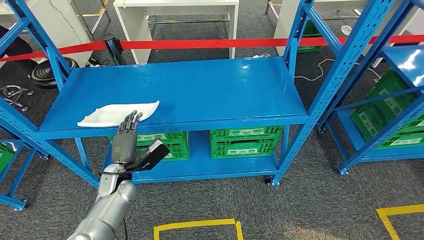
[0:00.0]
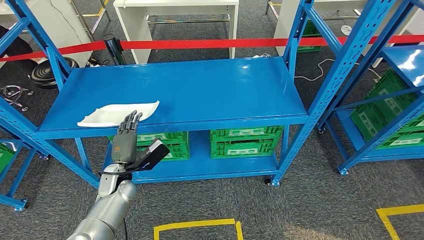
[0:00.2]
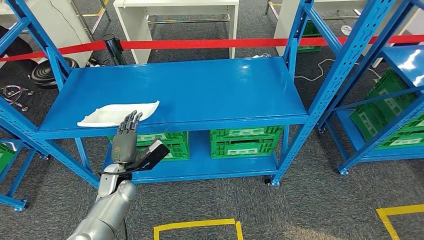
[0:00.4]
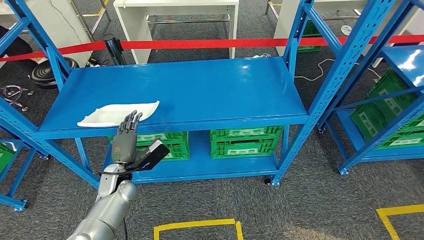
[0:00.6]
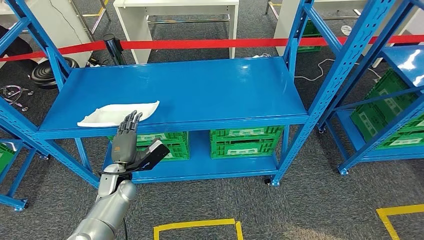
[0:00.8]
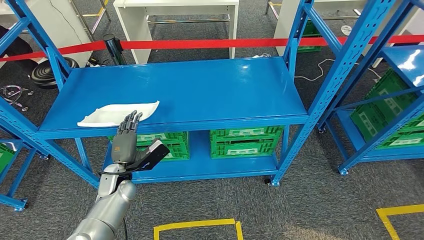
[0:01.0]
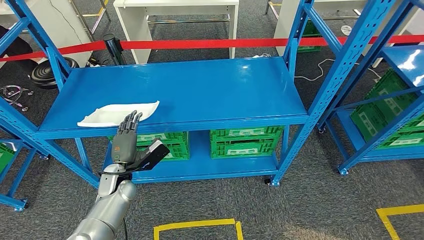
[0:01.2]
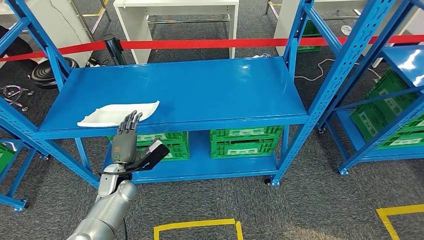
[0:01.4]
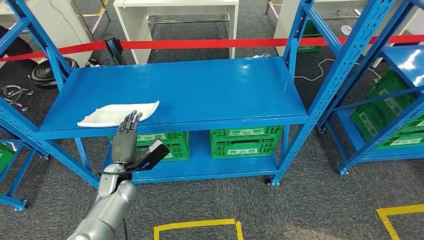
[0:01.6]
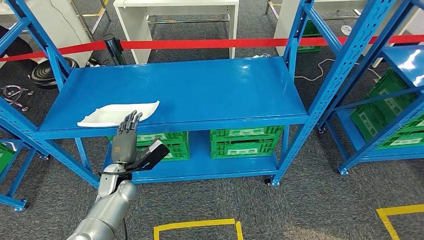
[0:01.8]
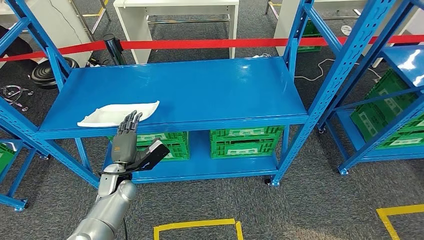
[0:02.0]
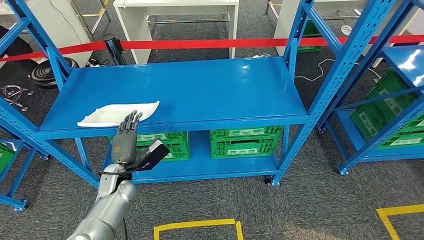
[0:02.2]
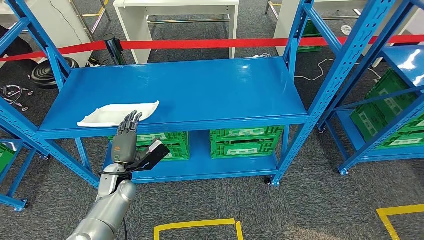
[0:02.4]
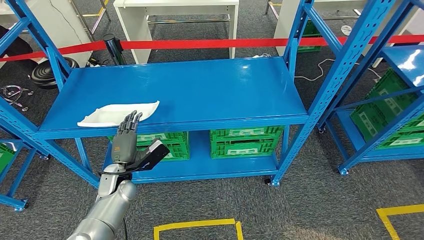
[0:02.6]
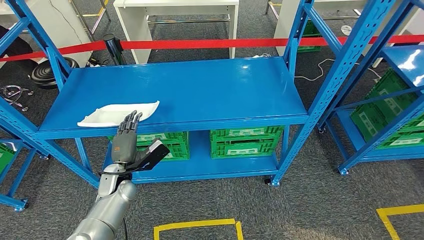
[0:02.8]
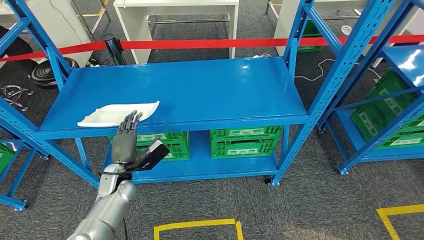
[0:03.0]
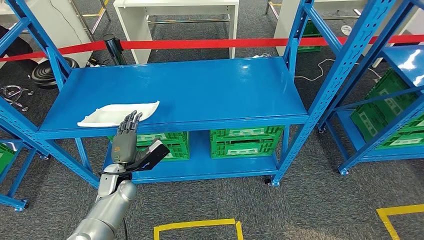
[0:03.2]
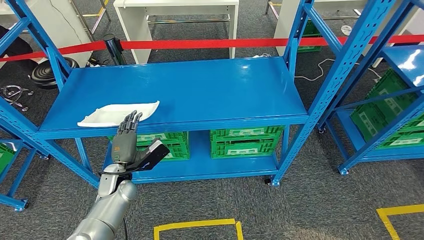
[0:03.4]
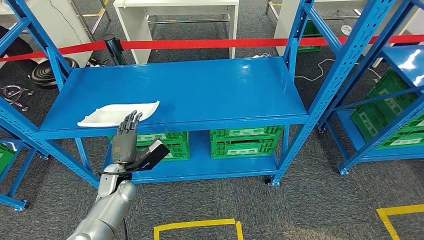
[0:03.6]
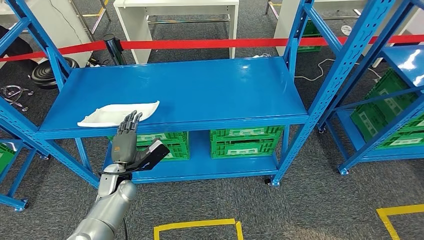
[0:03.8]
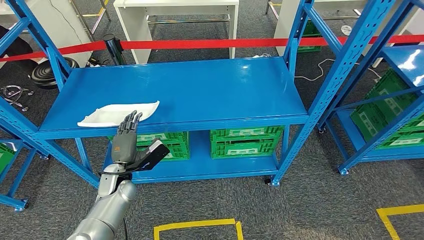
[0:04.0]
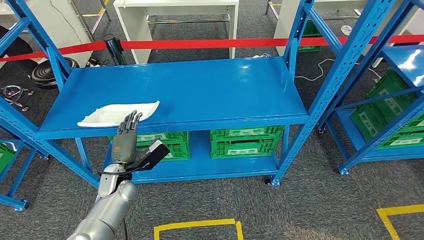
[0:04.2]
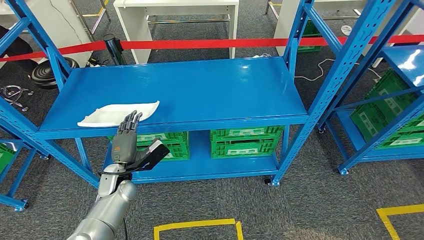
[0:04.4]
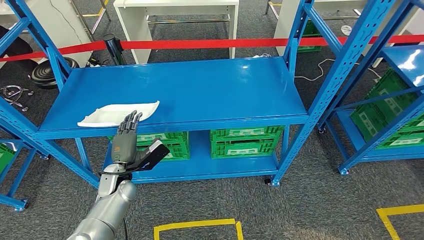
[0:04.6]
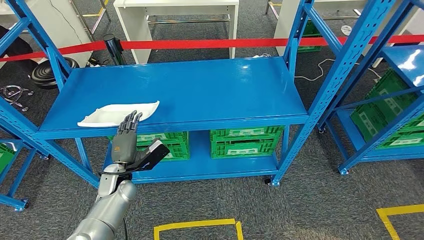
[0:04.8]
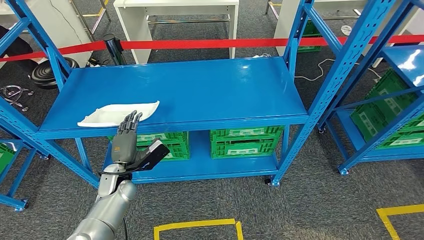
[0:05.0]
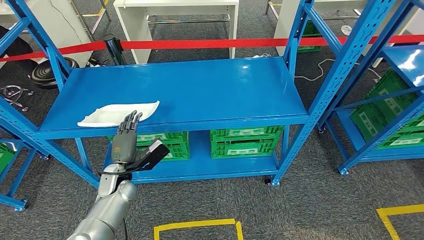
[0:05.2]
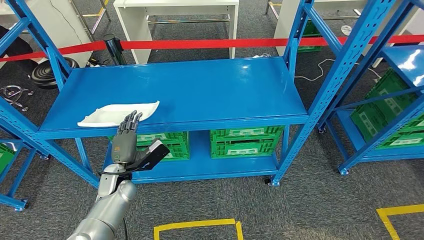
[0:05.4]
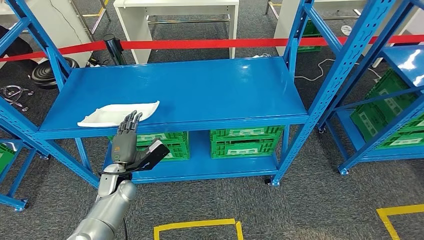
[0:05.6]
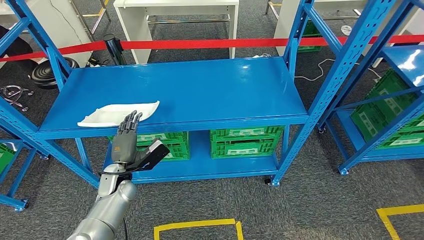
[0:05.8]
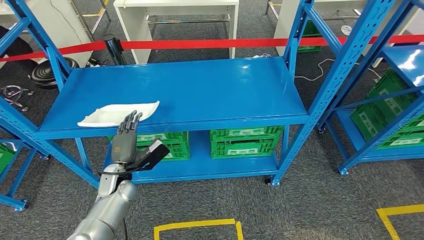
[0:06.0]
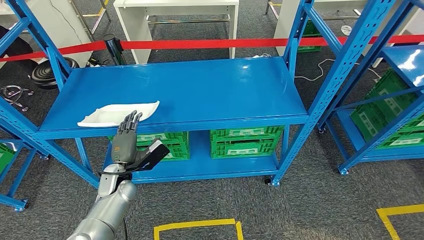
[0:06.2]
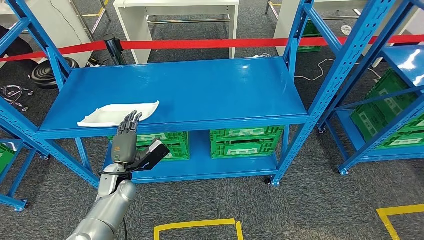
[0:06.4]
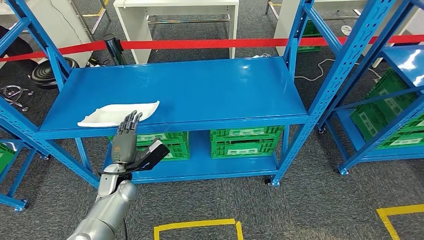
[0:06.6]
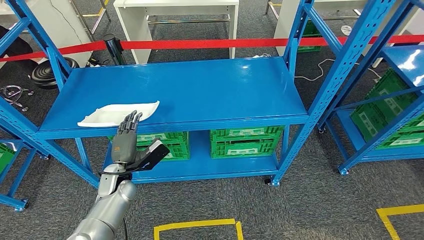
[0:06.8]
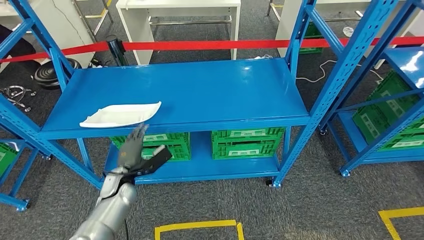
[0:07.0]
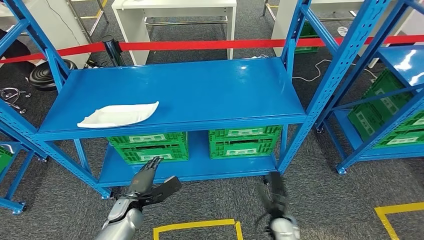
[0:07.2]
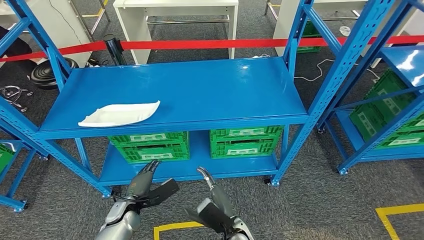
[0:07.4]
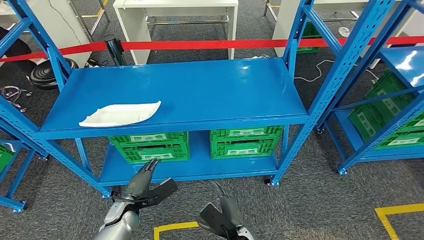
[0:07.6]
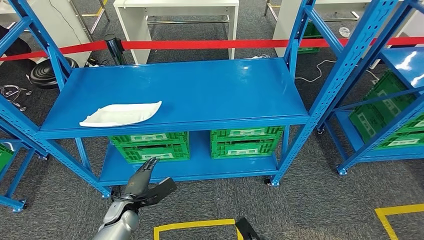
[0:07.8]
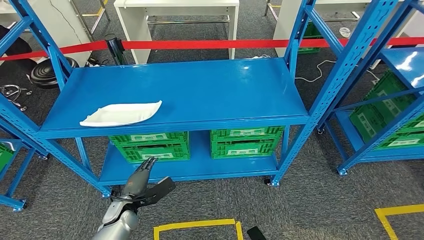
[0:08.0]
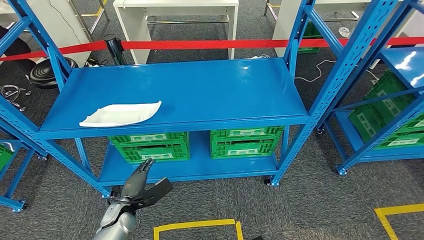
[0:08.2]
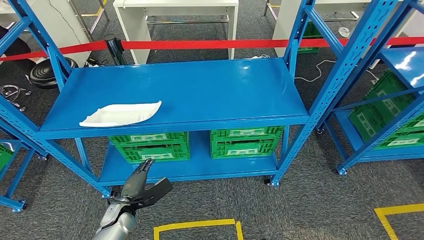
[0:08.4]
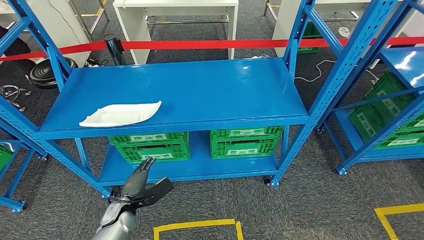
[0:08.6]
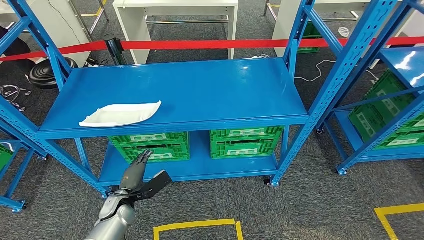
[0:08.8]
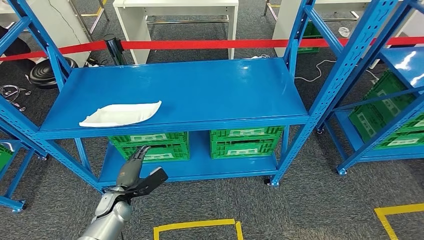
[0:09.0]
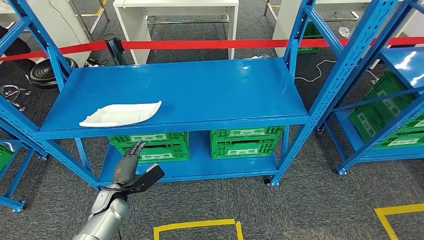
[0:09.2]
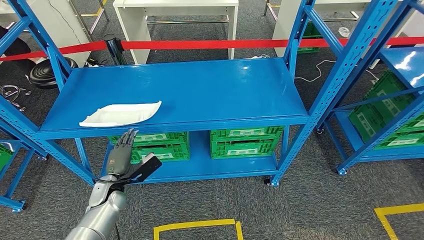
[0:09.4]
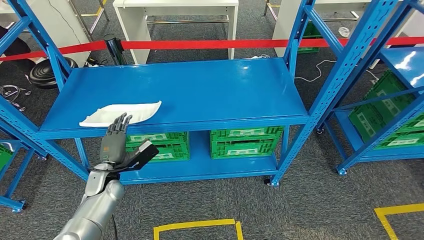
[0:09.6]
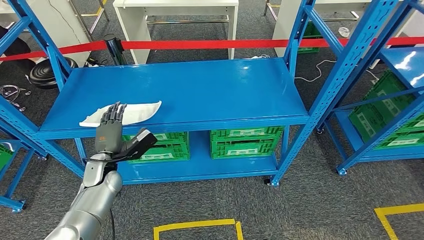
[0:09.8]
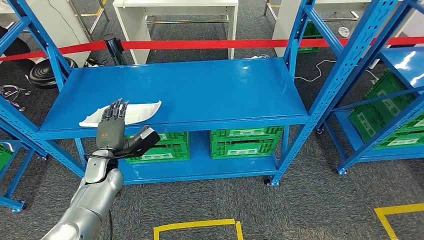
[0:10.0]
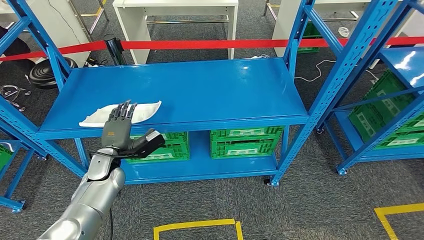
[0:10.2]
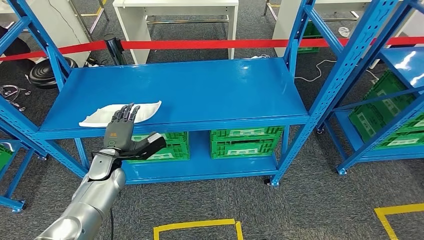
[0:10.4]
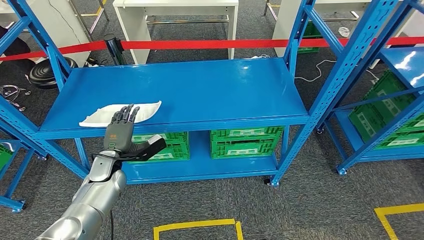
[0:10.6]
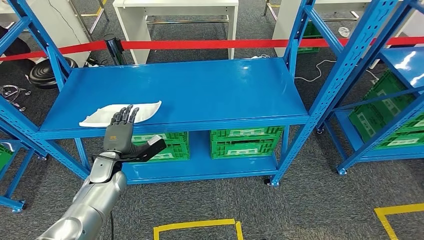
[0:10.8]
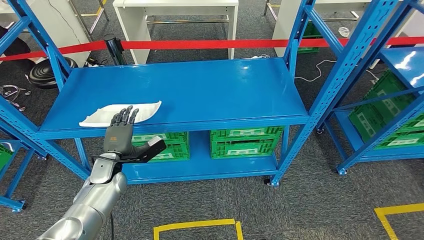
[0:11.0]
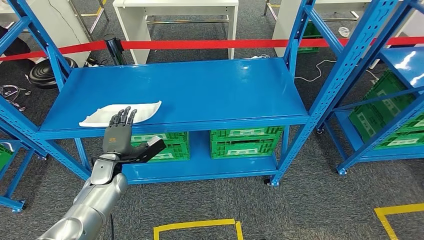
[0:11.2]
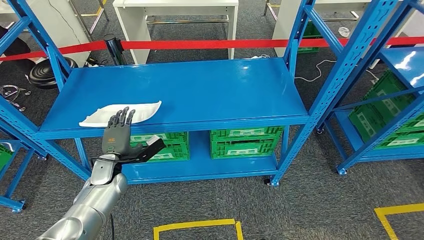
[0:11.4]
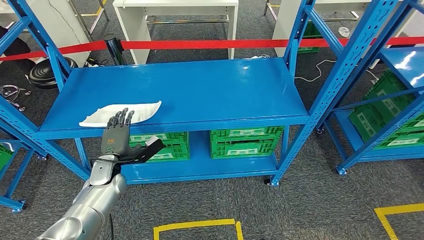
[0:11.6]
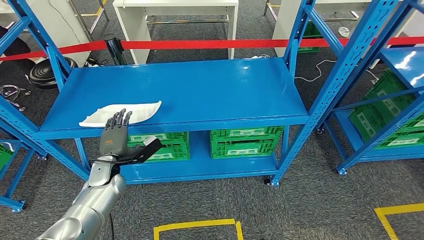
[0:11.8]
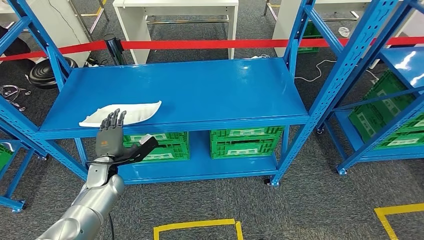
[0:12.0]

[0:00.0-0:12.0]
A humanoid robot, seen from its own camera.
0.0 to 6.0 s: Both hands stay put.
6.0 to 7.6 s: The left hand moves downward and backward, some 10 cm; the right hand heads forward, upward and to the left, covering about 15 cm.
7.6 to 9.0 s: The right hand shifts roughly 20 cm backward, to the right and downward.
9.0 to 10.4 s: The left hand is displaced upward and forward by roughly 10 cm.
10.4 to 12.0 s: The hands move only a little.

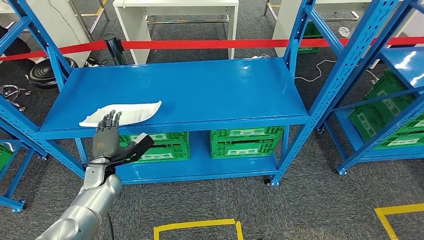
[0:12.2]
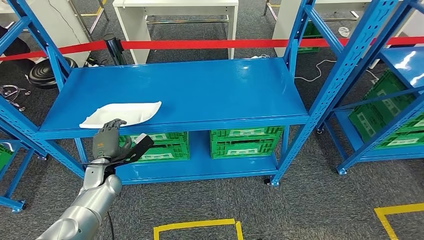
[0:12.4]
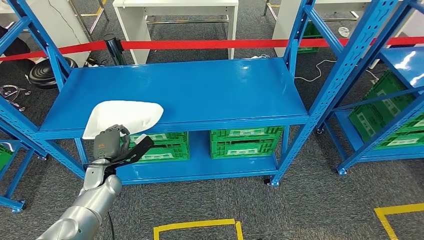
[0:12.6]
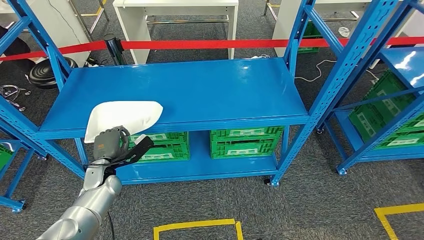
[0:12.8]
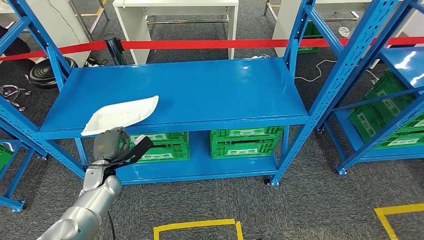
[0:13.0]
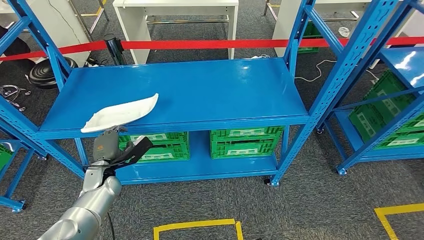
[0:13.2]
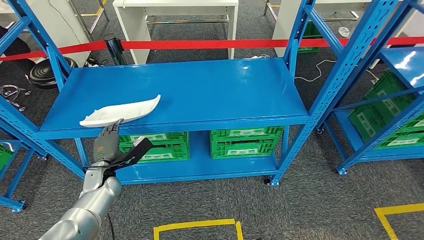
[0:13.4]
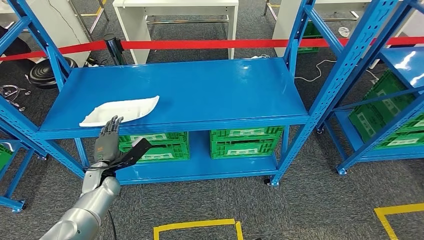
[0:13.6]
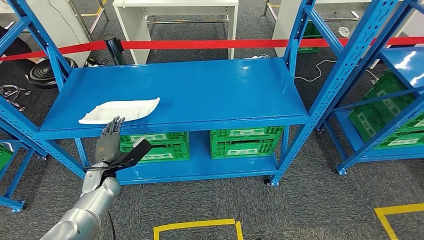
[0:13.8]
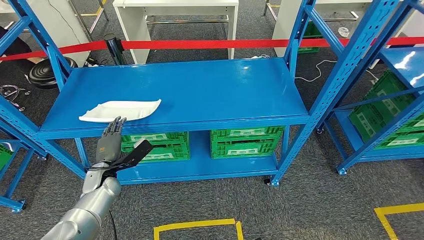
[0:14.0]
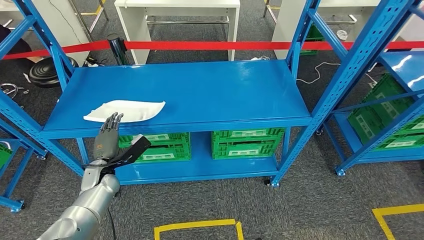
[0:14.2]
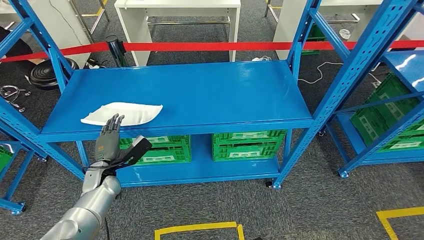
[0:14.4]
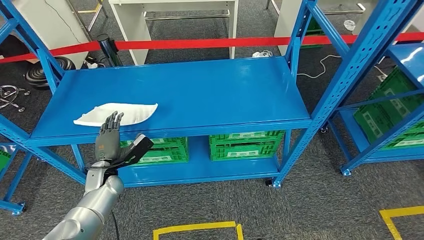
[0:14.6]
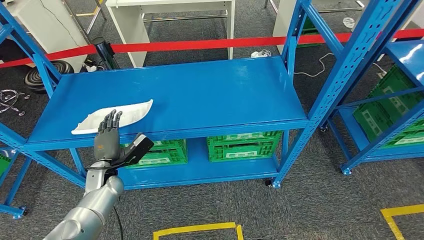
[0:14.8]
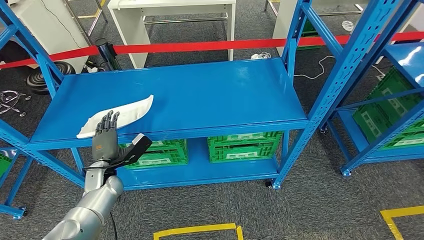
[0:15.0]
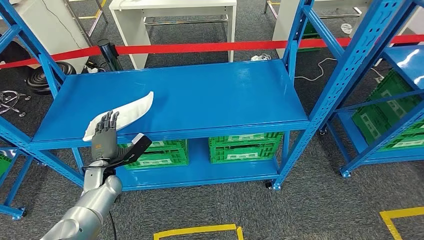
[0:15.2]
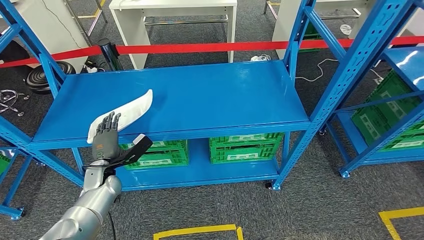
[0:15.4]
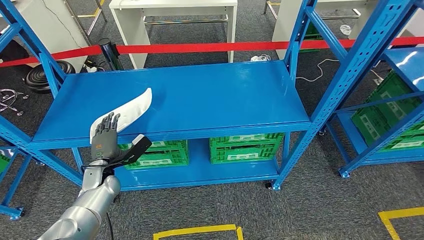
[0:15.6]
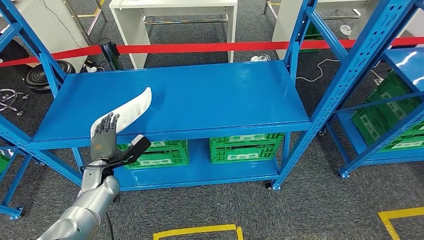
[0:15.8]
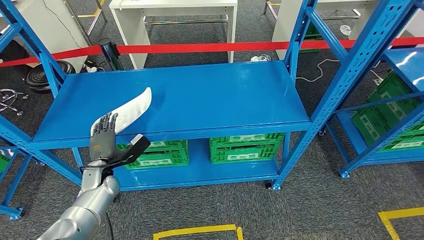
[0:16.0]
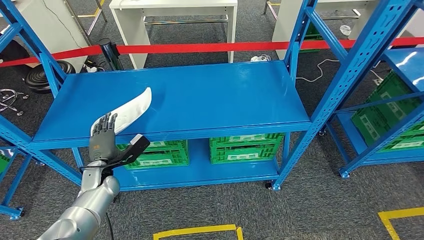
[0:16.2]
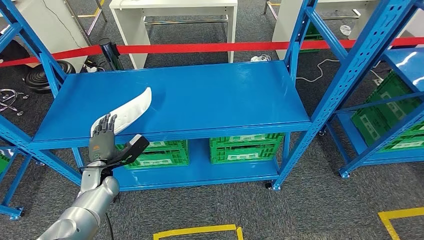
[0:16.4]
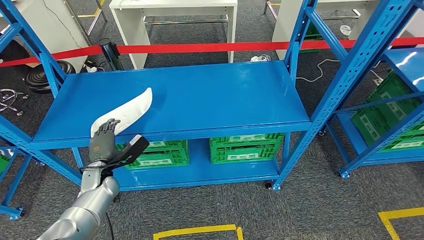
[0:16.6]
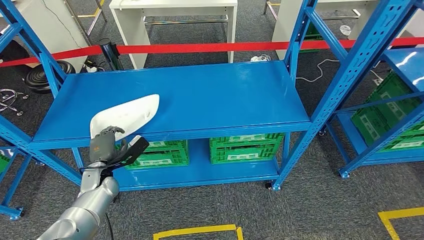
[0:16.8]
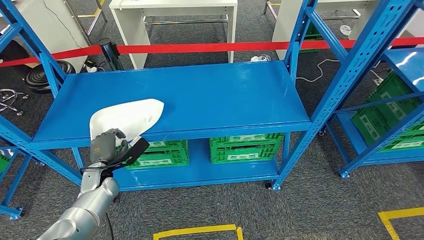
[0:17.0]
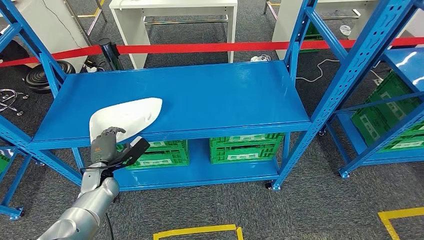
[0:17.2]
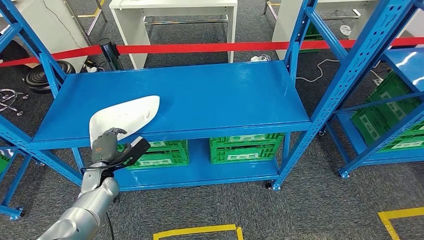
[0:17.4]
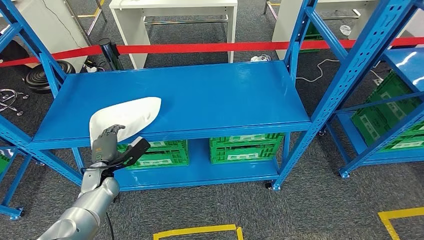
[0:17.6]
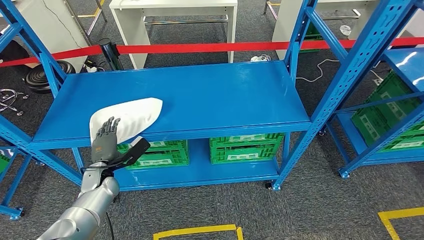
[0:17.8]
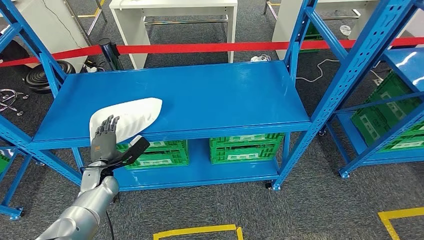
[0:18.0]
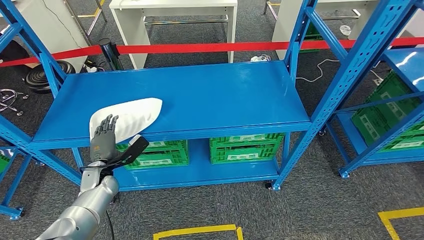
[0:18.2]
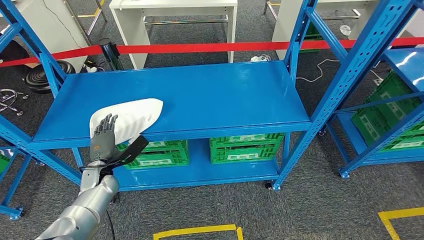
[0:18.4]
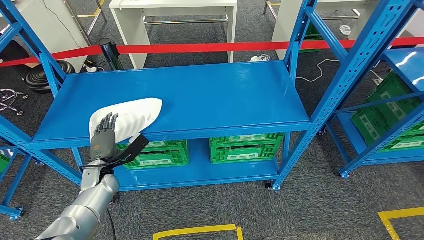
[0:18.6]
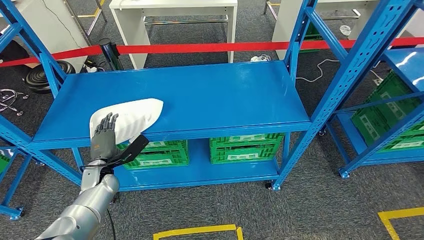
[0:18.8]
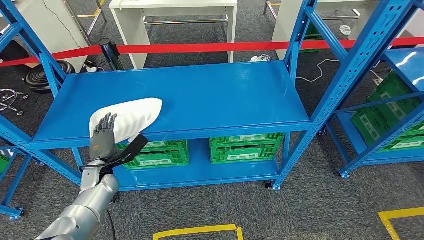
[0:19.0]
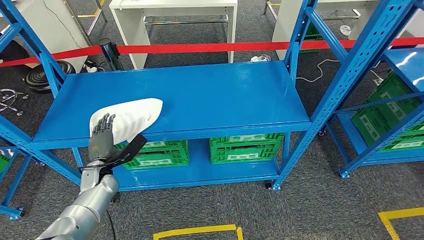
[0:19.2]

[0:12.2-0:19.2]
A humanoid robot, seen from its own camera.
12.2 to 13.6 s: The hands stay close to where they were, moving slightly.
15.0 to 17.8 s: The hands stay close to where they were, moving slightly.
17.8 to 19.2 s: Both hands stay about where they are.
